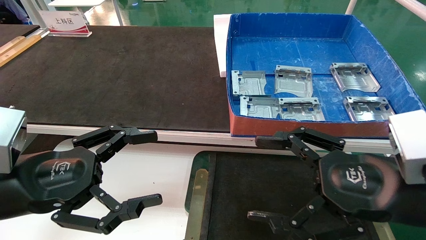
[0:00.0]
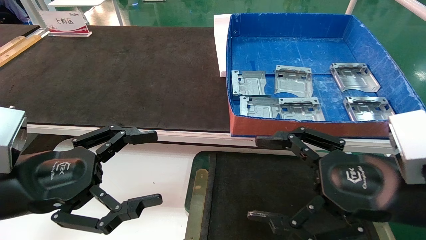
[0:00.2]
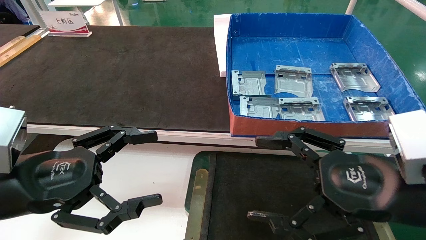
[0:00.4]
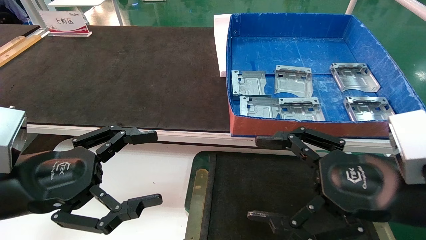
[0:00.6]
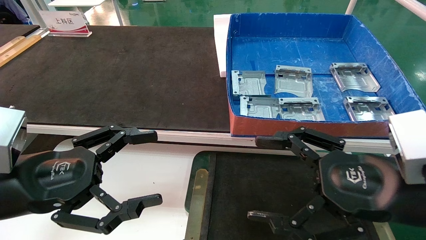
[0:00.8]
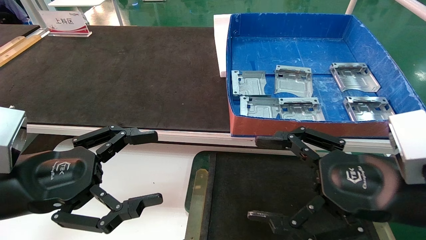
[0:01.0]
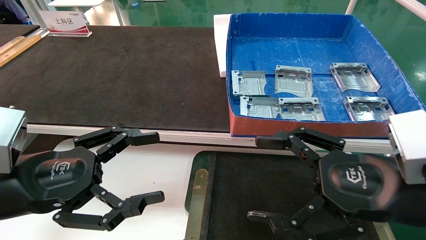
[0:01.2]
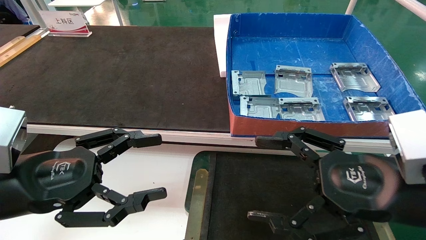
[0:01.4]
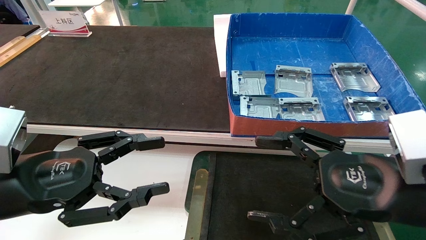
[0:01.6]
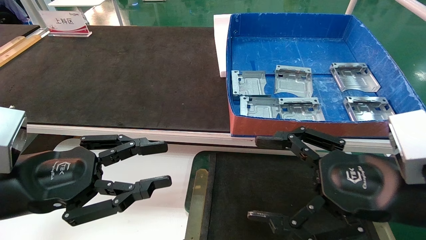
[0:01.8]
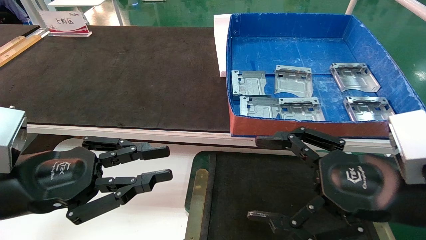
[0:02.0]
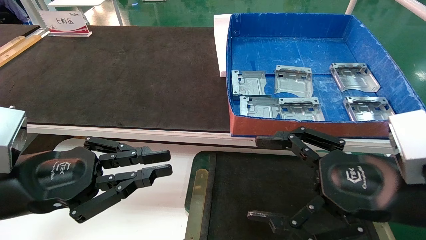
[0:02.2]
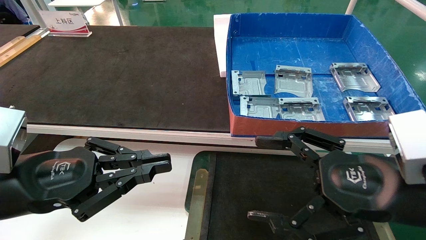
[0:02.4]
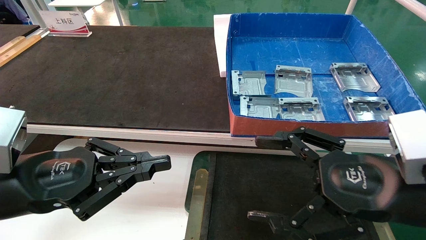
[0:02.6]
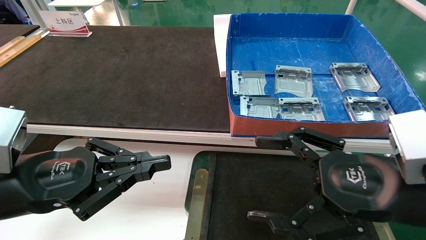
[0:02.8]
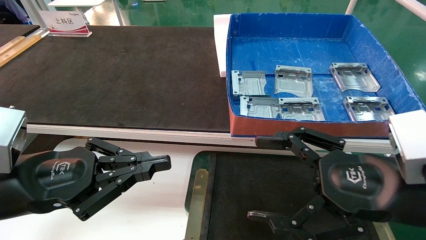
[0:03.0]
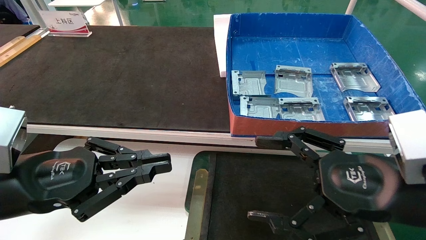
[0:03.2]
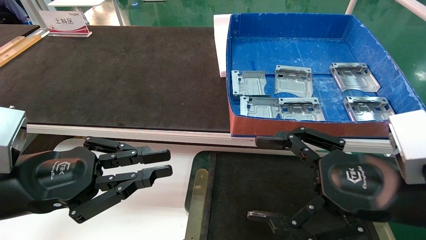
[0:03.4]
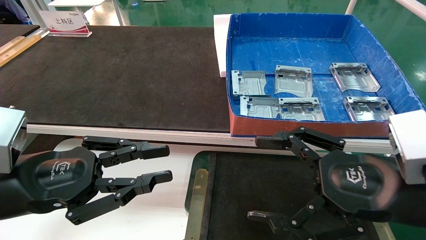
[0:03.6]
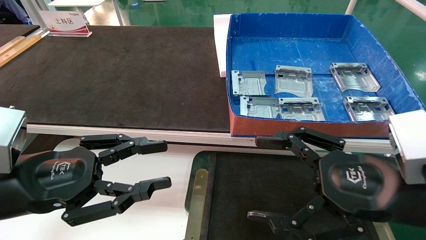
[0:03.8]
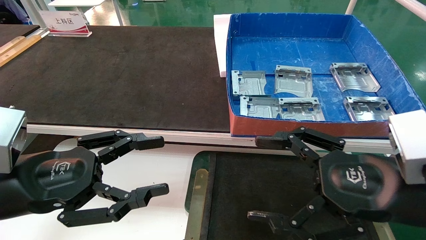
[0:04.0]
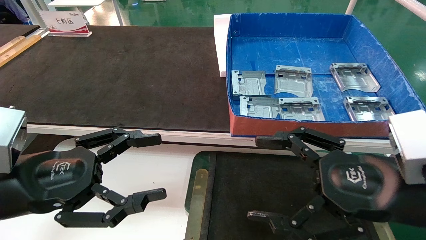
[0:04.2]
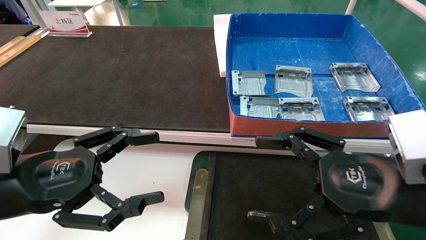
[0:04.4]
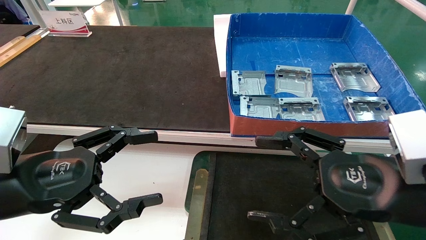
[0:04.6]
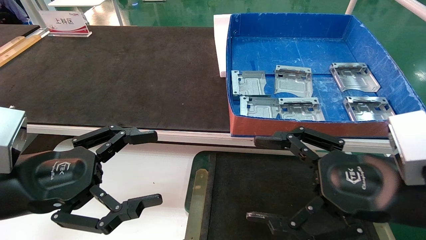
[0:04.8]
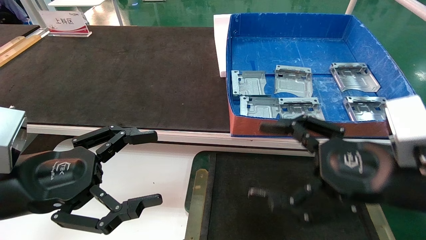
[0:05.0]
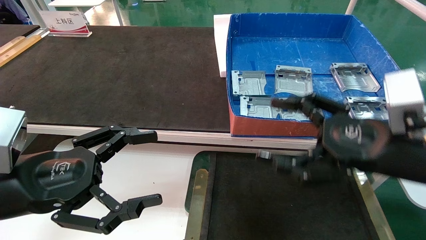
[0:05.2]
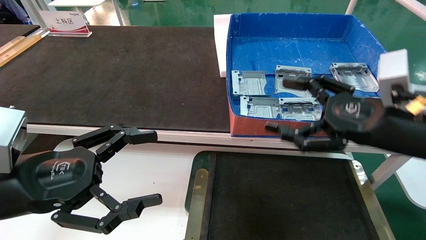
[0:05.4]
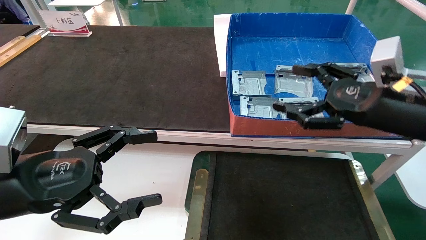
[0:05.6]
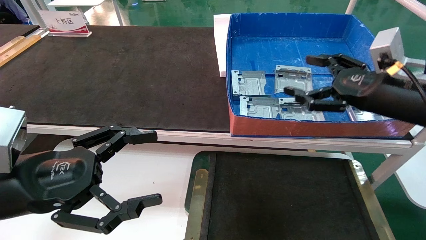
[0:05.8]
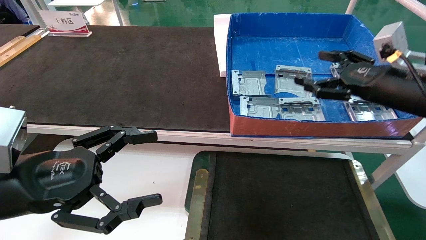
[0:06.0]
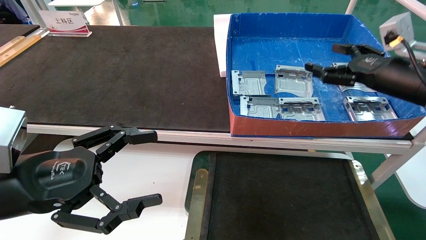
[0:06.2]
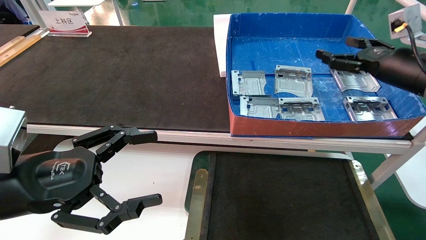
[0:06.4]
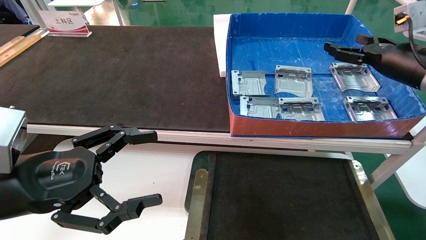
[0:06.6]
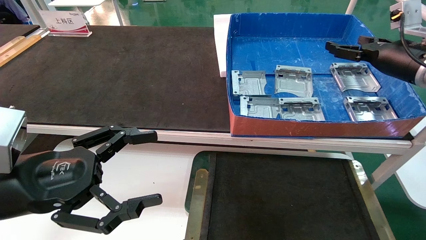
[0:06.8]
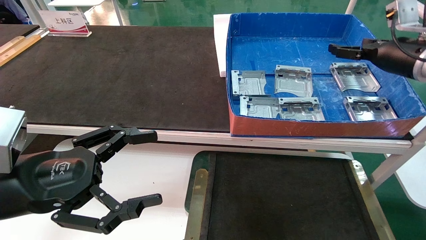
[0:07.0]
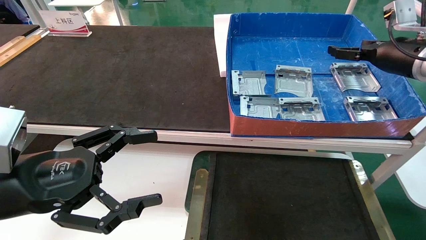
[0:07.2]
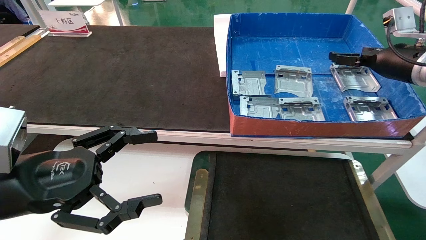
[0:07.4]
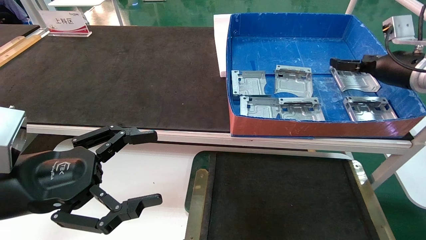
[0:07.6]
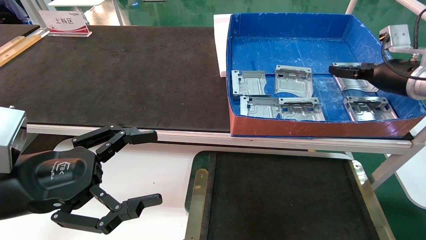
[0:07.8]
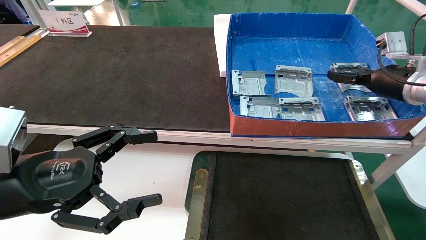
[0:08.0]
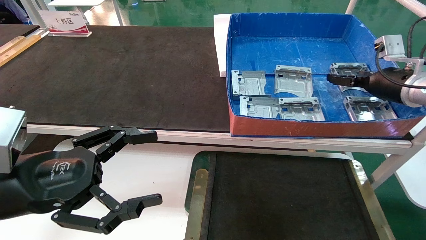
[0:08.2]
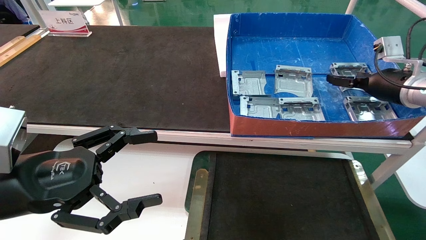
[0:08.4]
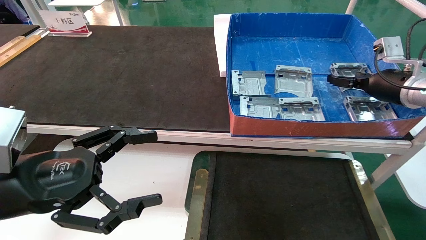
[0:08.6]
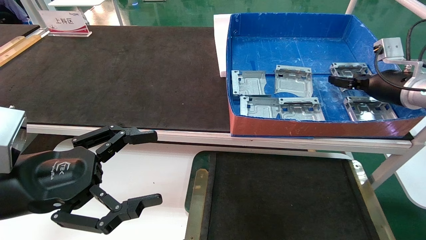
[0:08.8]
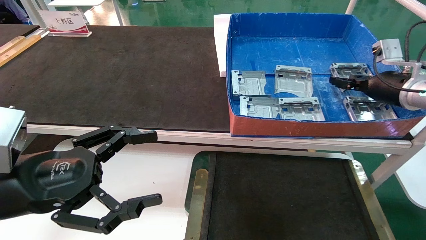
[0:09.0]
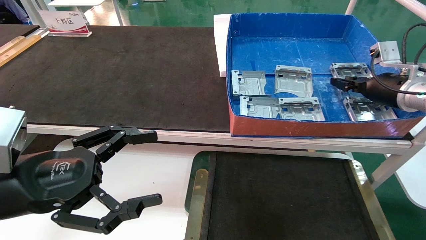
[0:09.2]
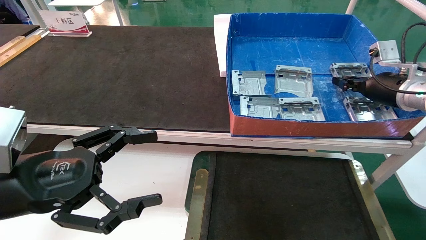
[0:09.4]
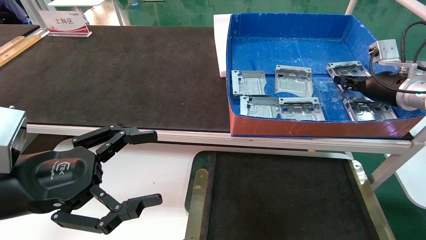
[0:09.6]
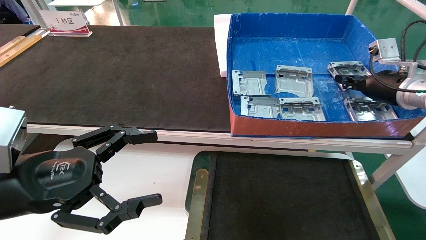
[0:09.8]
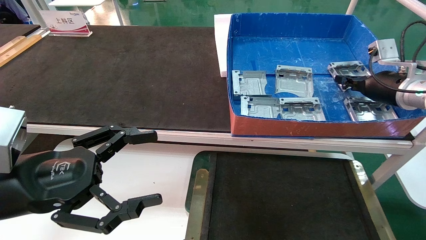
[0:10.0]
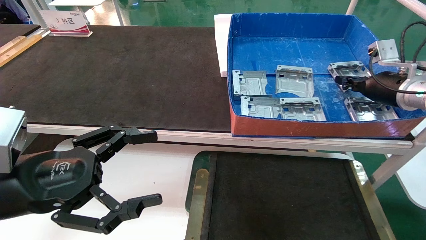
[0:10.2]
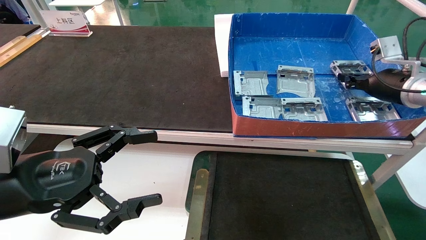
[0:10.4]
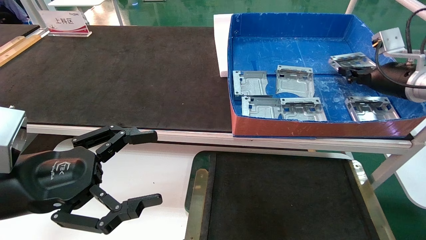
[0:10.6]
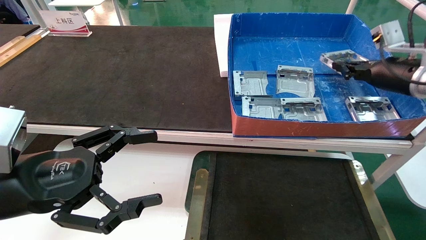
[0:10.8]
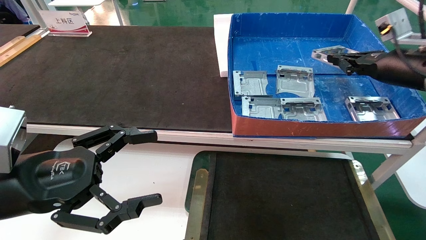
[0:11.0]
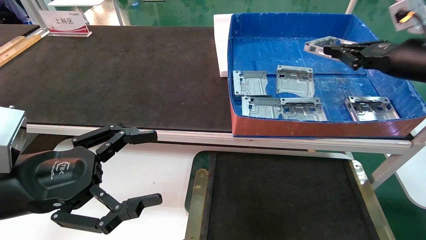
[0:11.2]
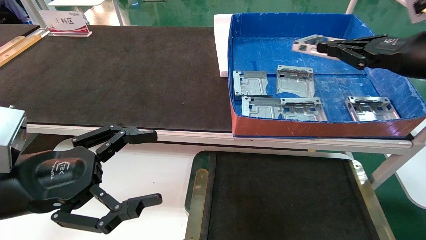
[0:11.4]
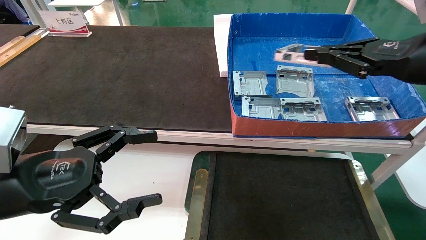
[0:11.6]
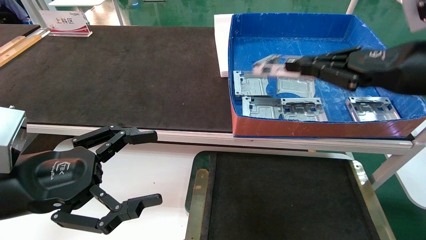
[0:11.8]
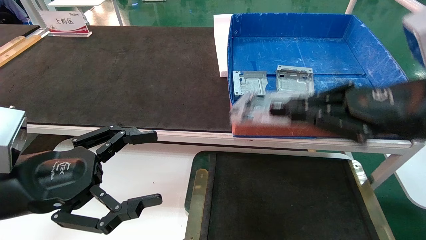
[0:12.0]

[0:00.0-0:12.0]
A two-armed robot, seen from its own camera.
Task of the whole recording: pick up parts and place them into a black container.
Step, 0:05.4 to 0:10.0: Pick up the hard drive bracket from the feeding area.
0:00.0 to 0:01.6: Both grippers stay put.
0:01.6 to 0:03.0: The left gripper closes up.
0:03.0 to 0:04.4: The left gripper opens its fingers.
0:04.4 to 0:06.0: The right gripper travels forward, to the right and upward by about 20 cm.
0:06.0 to 0:07.6: The right gripper travels forward by about 10 cm.
0:07.6 to 0:09.0: The right gripper closes.
0:09.0 to 0:10.4: The right gripper closes.
0:10.4 to 0:12.0: The right gripper goes roughly 25 cm backward and to the left.

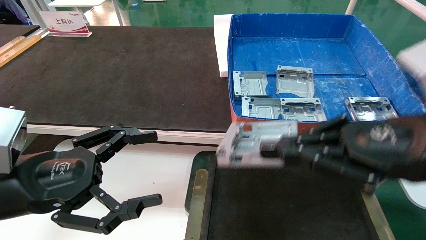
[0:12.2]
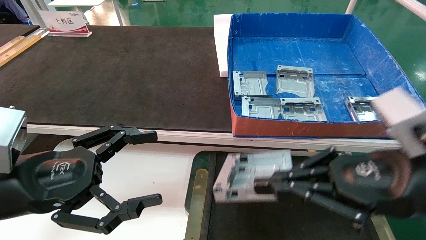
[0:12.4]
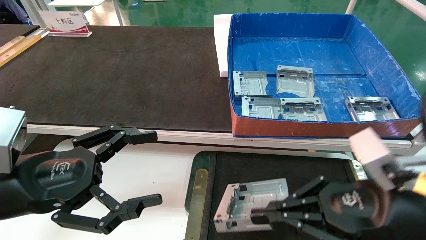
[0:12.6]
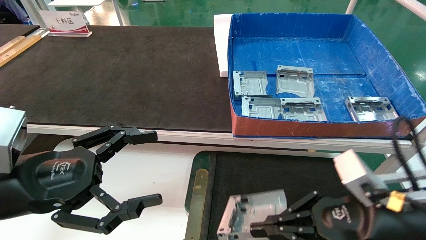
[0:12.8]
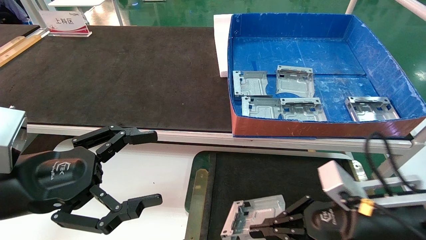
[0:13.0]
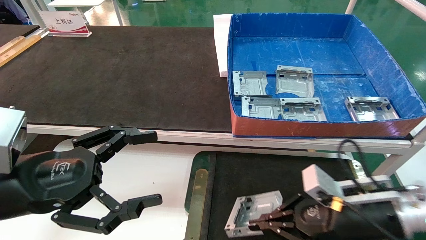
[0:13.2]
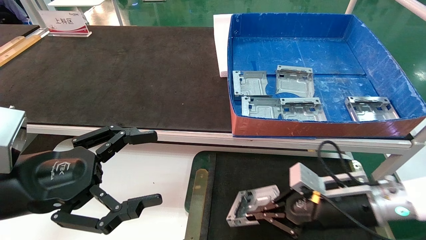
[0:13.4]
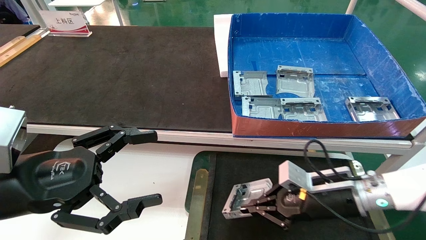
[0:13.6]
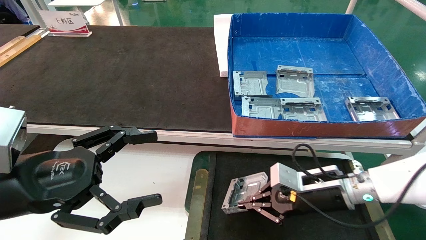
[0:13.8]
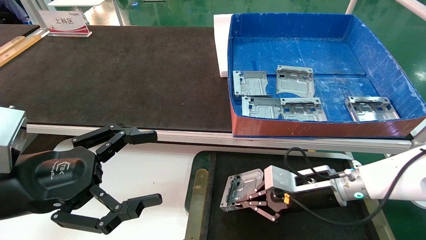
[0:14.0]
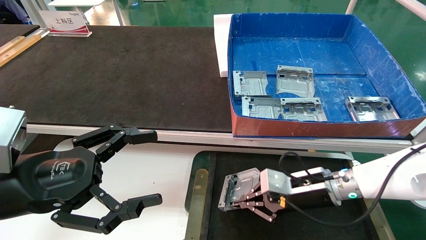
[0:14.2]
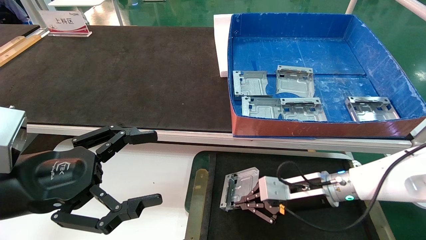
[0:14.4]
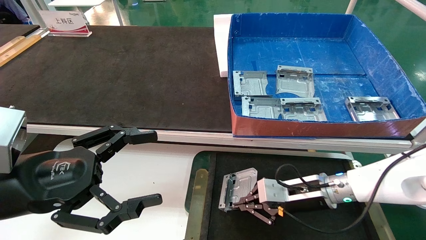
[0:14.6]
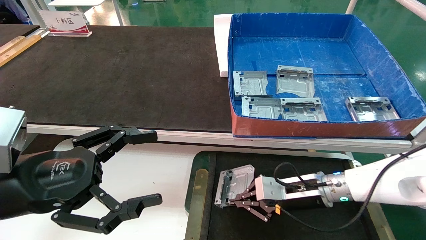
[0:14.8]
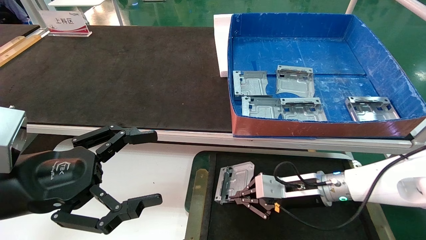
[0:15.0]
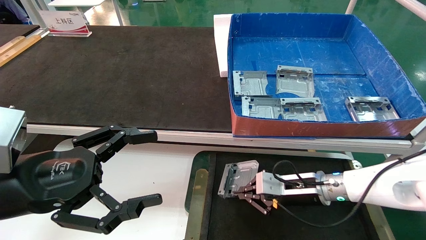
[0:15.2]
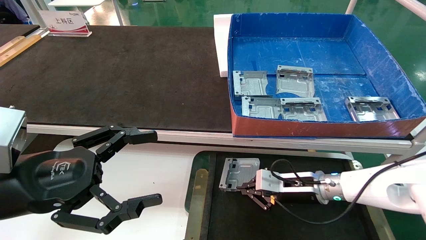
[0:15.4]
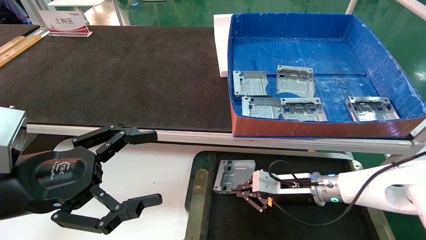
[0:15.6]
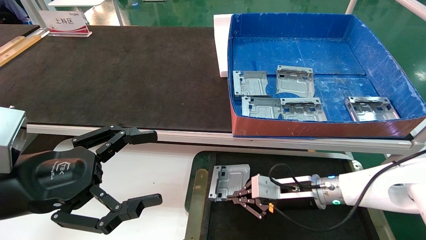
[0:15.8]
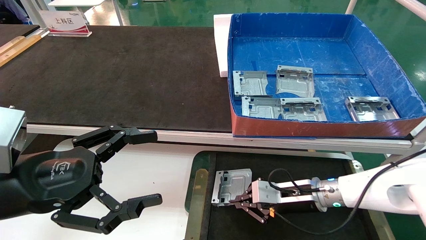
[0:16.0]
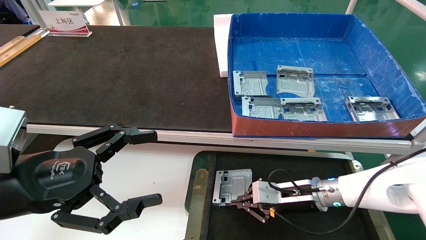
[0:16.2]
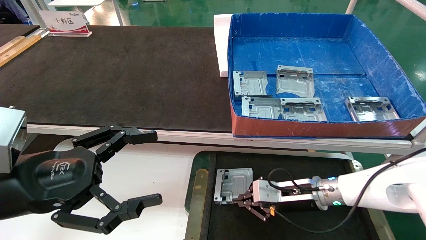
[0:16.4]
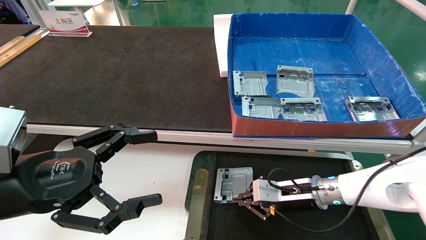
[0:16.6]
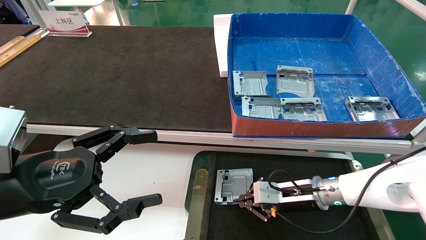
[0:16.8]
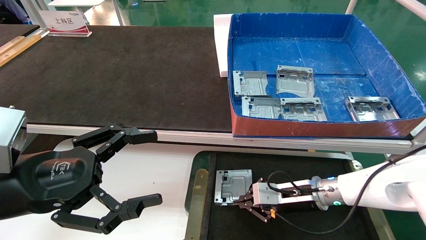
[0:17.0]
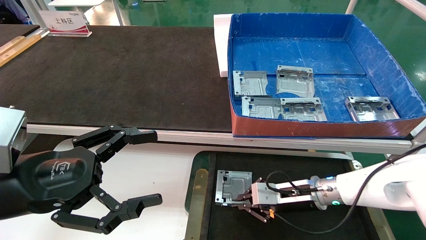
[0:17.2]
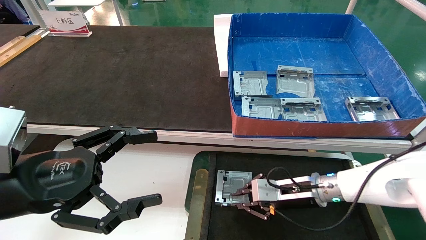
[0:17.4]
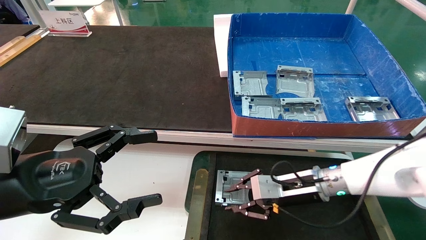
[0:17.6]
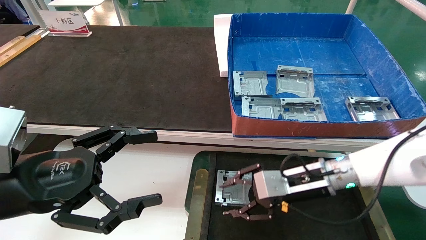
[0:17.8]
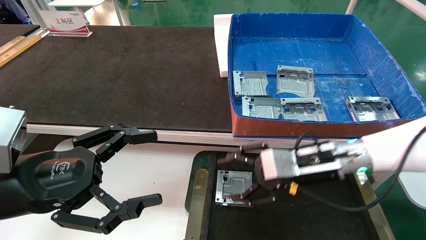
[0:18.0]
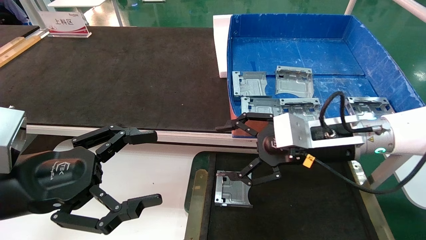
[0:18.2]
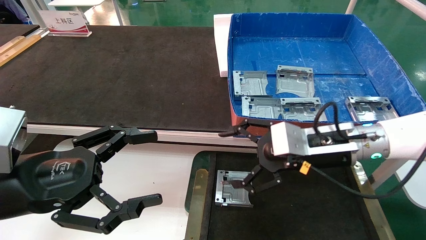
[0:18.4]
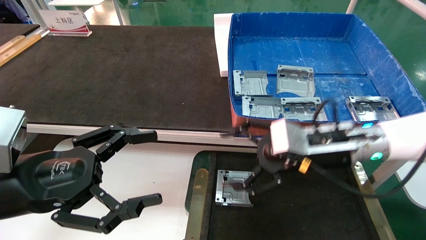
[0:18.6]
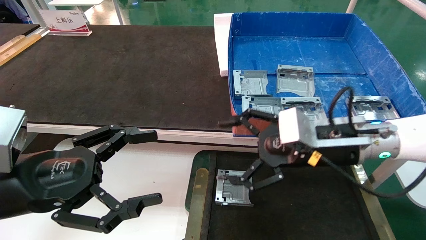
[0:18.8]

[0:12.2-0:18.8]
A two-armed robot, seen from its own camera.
Task of the whole recording: pick up parts and place them into a black container.
Step, 0:12.2 to 0:17.4: Place the hard drive bracket into the box.
0:12.2 to 0:13.8: The right gripper moves downward and forward, approximately 25 cm.
0:13.8 to 0:15.4: The right gripper heads forward, covering approximately 5 cm.
0:15.4 to 0:17.2: The grippers stay close to where they were, moving slightly.
0:17.2 to 0:18.8: The right gripper shifts about 15 cm upward and backward, and opens.
